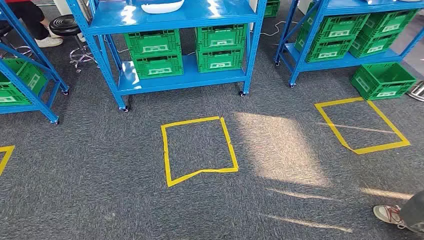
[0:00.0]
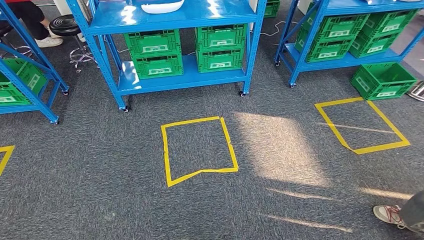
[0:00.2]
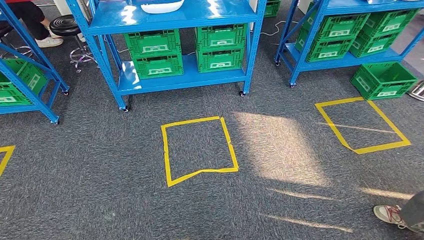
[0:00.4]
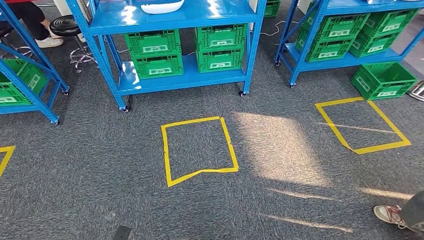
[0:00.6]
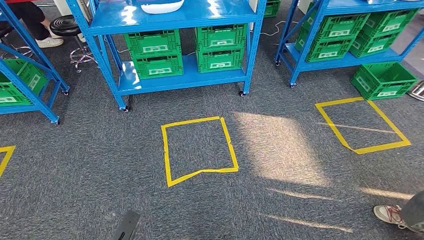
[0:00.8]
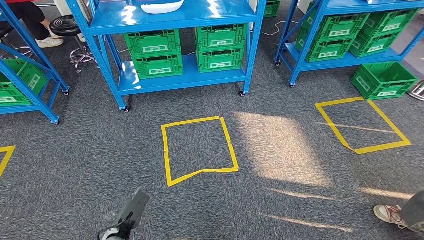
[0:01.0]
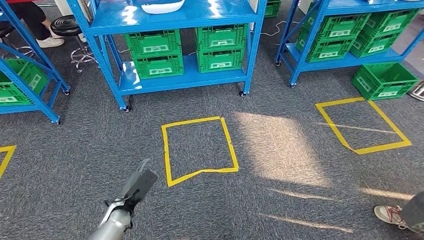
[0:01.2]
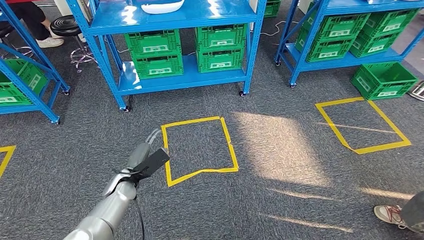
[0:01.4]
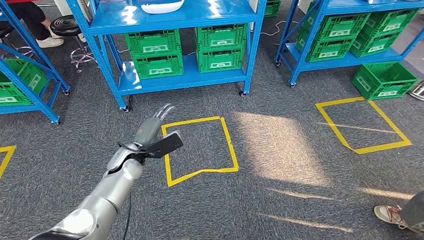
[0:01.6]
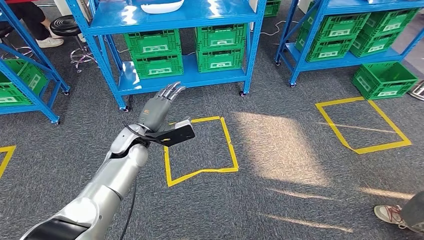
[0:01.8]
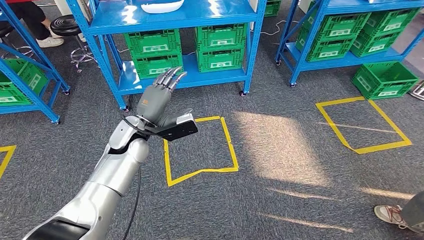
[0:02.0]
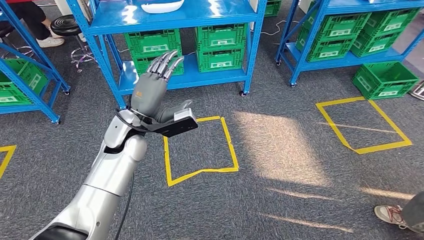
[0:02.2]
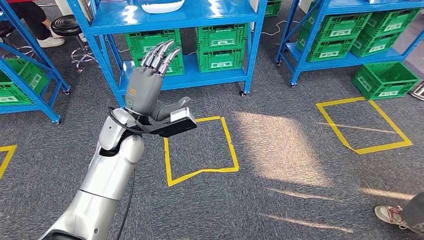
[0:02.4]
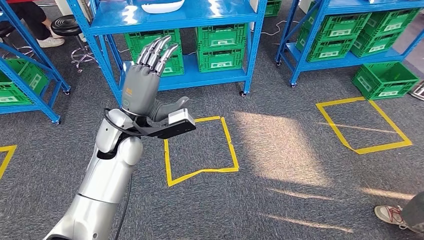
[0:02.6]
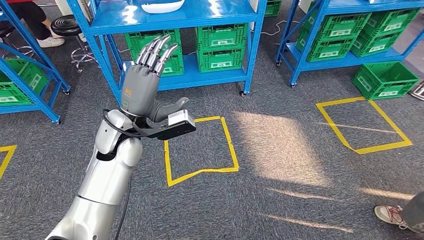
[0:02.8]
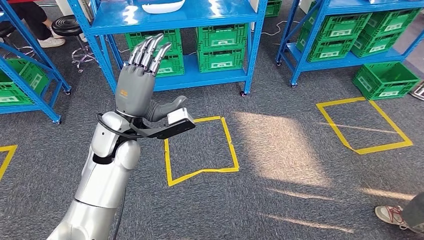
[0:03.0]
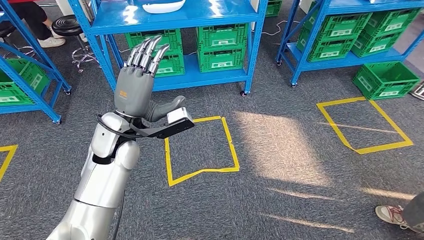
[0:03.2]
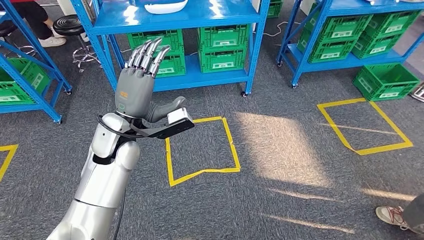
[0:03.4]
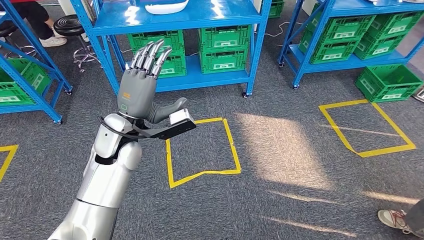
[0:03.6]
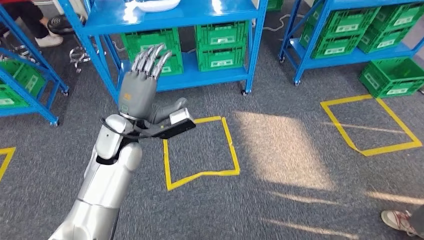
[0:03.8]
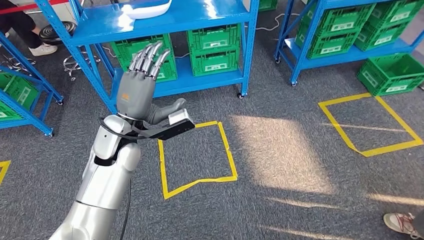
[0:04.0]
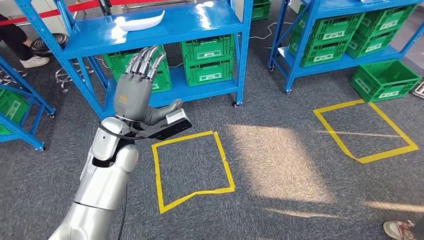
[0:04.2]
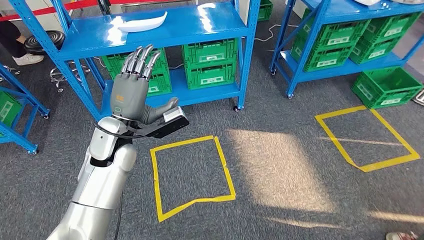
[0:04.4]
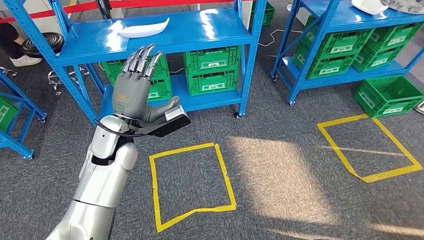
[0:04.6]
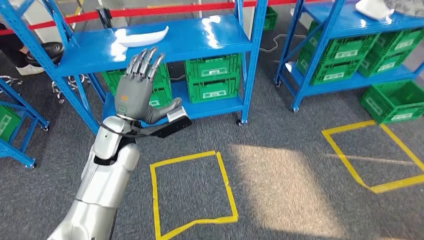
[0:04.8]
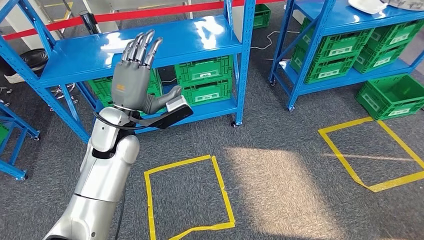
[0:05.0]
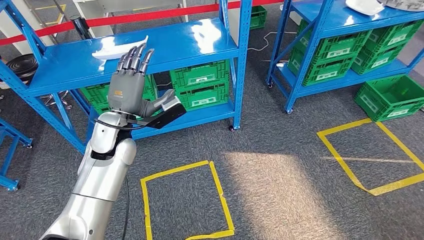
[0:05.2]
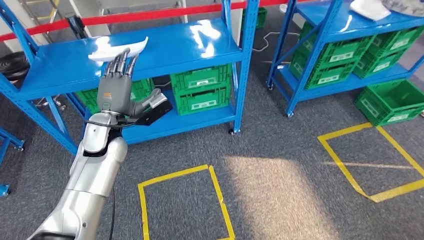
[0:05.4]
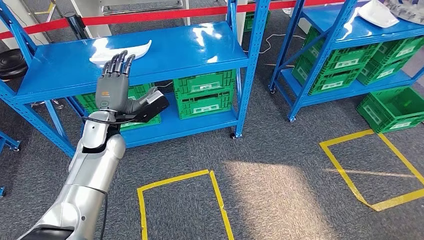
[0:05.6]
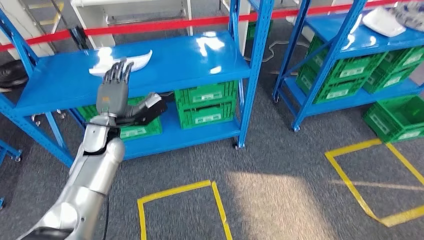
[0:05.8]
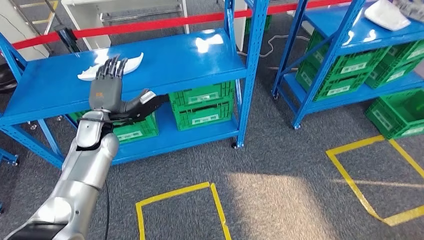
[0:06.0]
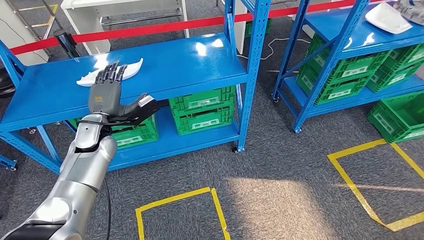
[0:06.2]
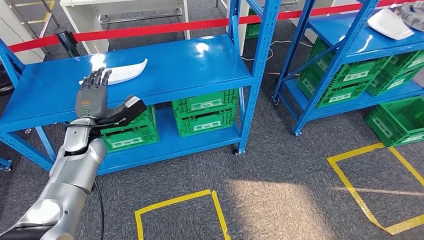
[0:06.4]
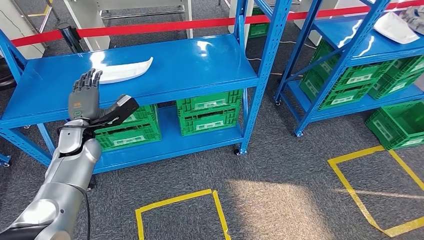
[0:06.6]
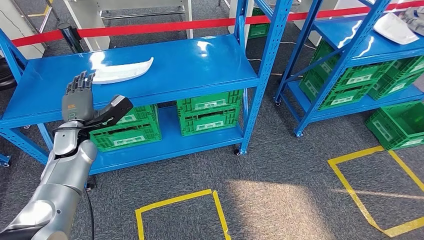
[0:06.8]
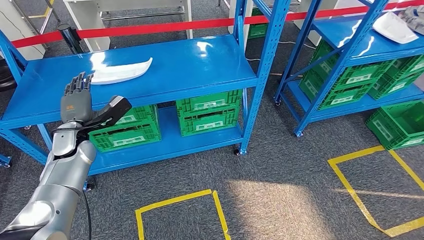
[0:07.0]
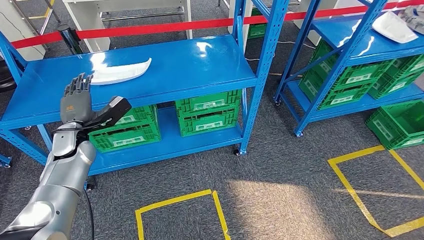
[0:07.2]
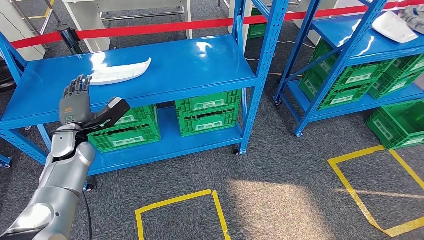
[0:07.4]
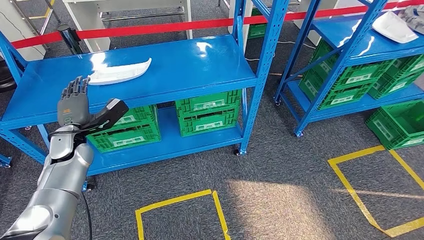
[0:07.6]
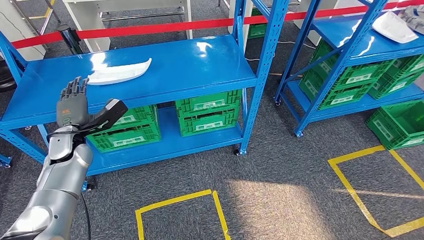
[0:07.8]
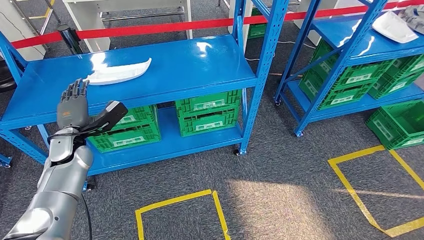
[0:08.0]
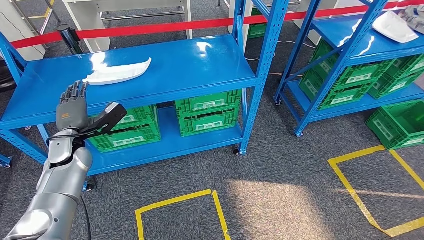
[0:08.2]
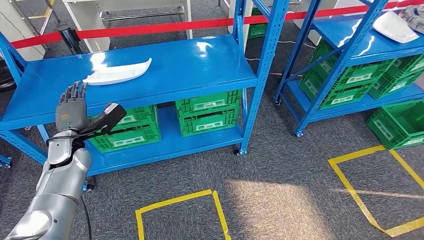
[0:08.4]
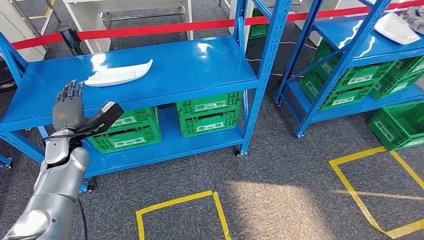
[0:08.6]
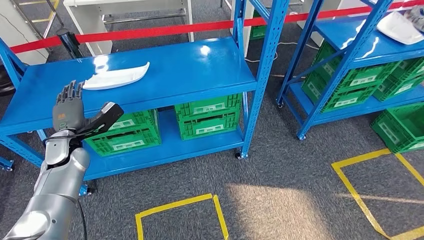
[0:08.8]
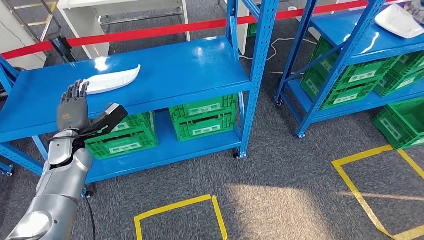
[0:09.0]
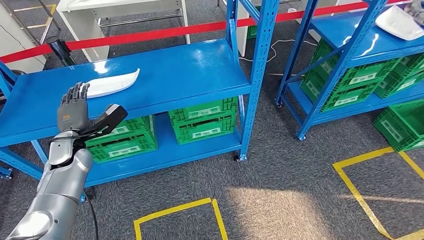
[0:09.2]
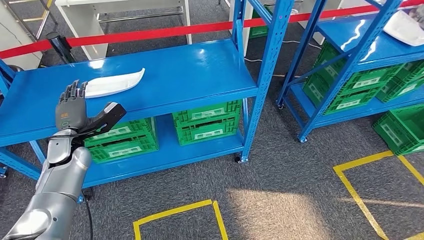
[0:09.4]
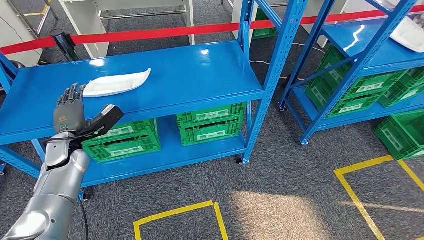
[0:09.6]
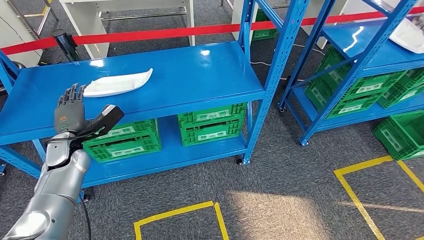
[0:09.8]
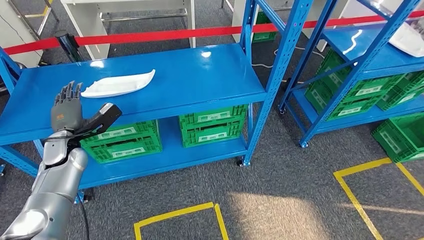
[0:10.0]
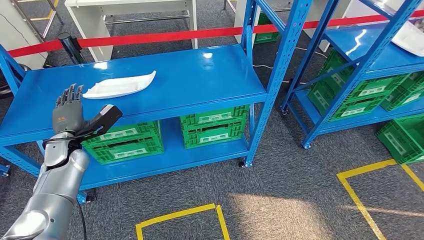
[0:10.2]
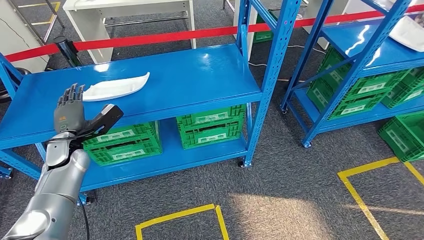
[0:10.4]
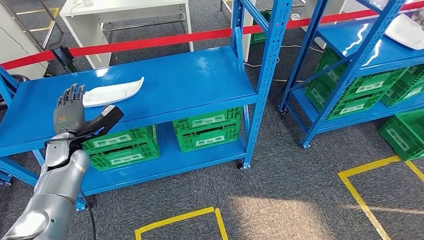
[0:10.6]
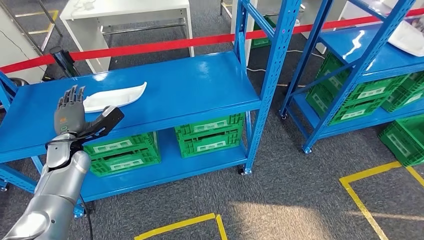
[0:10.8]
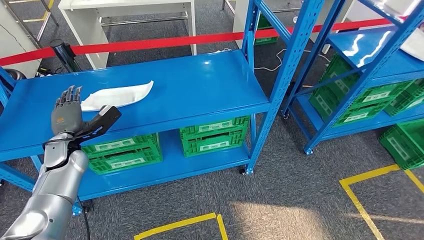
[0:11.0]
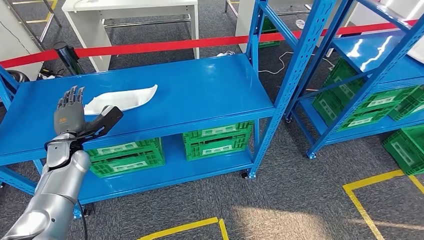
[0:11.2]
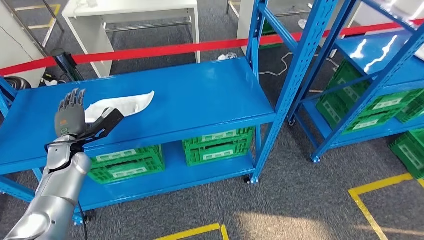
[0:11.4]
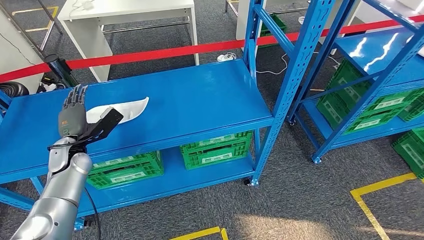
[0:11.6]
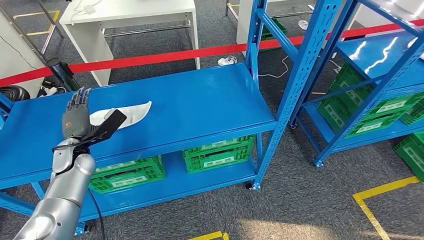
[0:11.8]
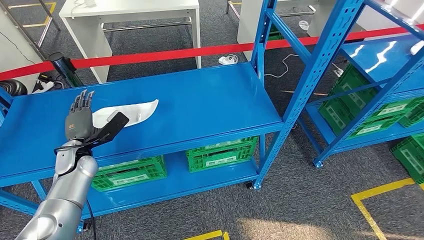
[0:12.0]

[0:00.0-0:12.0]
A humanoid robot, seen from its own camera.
0:01.6 to 0:03.0: The left hand is displaced upward by some 15 cm.

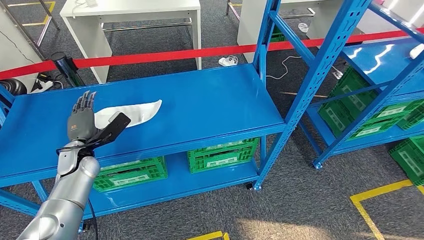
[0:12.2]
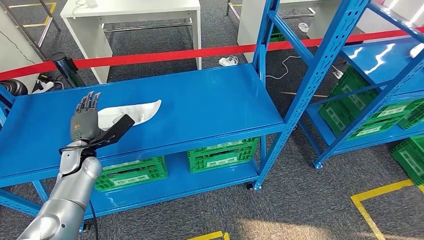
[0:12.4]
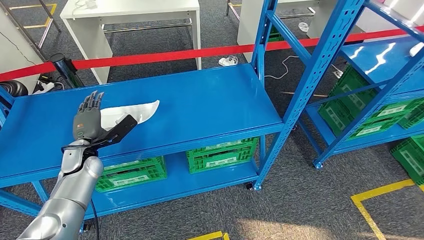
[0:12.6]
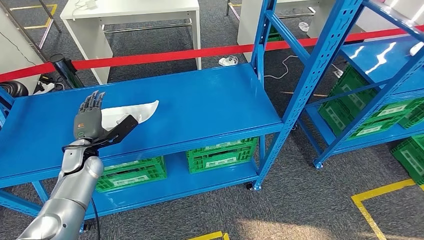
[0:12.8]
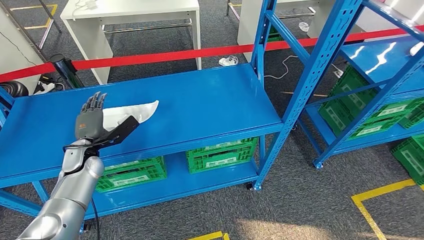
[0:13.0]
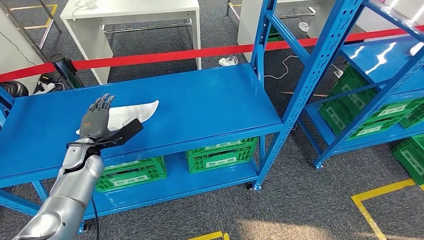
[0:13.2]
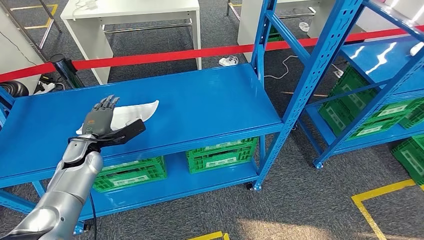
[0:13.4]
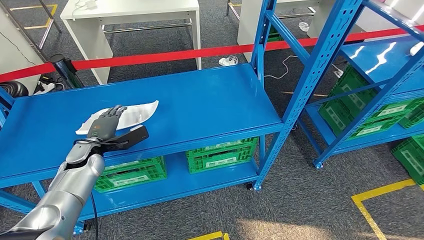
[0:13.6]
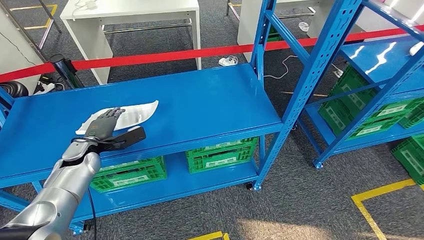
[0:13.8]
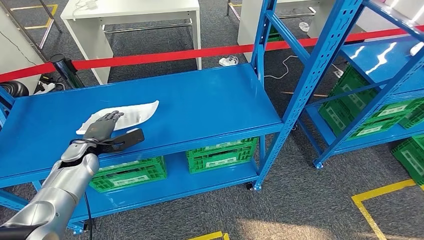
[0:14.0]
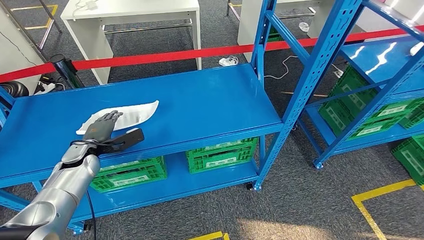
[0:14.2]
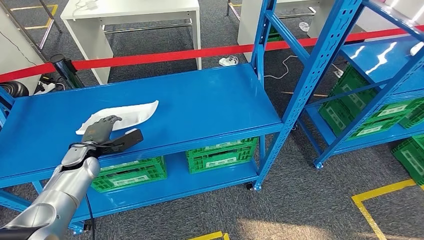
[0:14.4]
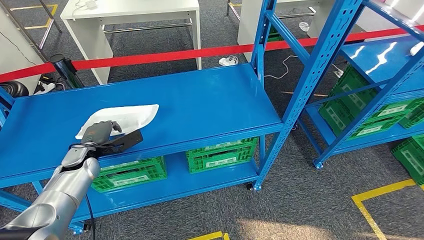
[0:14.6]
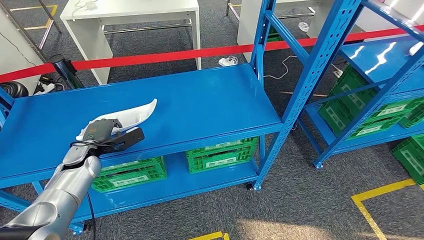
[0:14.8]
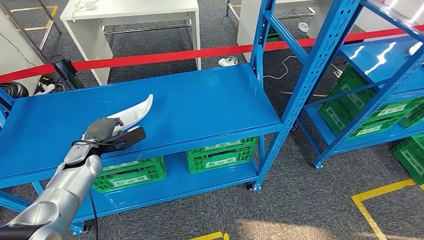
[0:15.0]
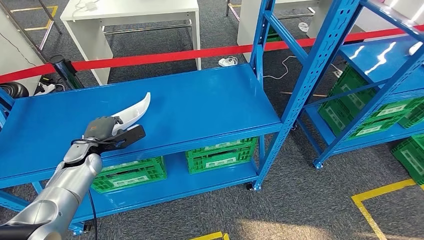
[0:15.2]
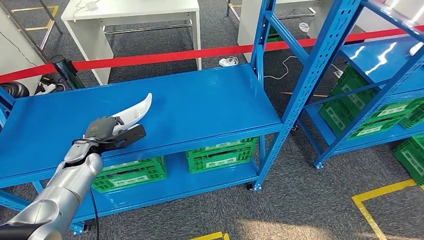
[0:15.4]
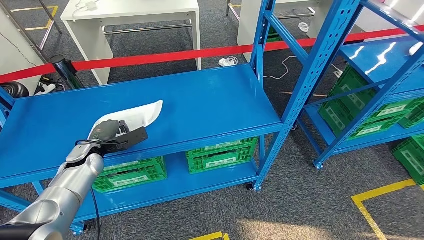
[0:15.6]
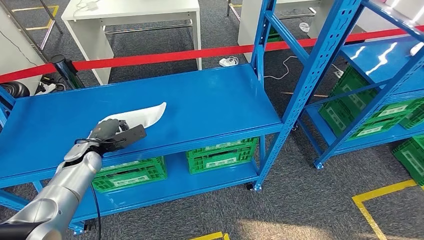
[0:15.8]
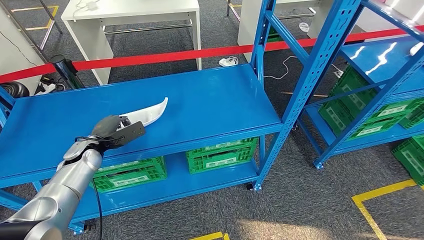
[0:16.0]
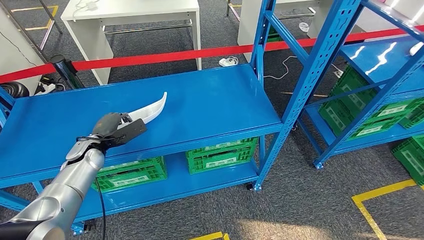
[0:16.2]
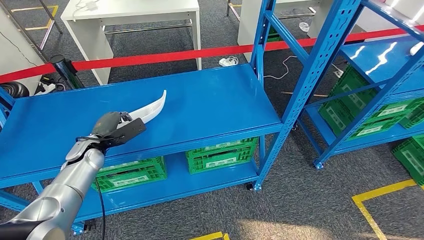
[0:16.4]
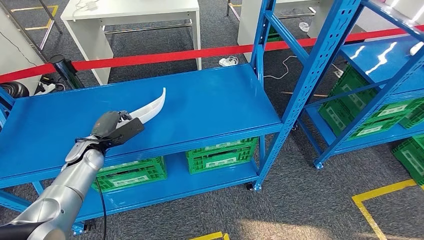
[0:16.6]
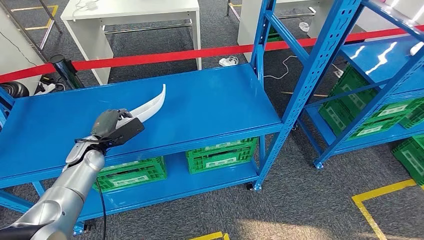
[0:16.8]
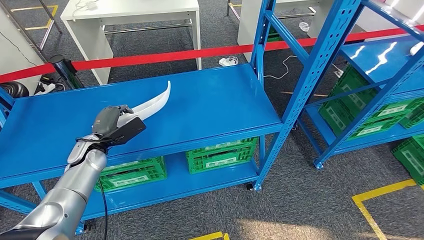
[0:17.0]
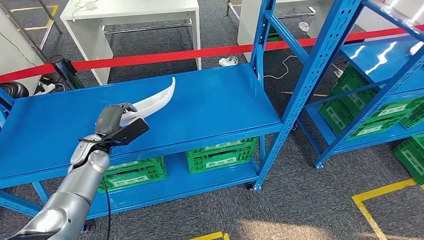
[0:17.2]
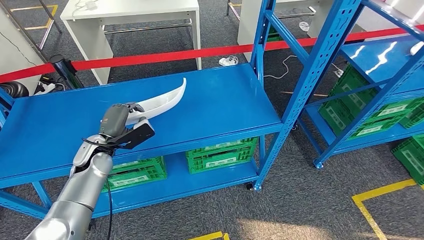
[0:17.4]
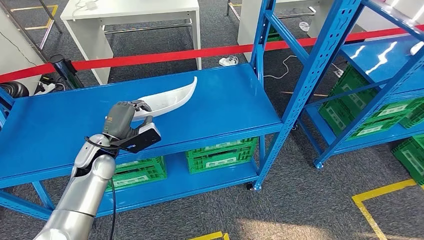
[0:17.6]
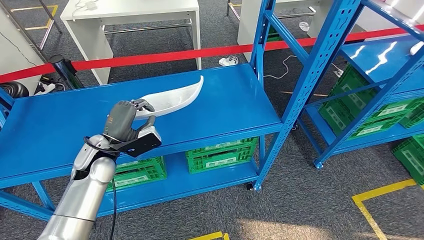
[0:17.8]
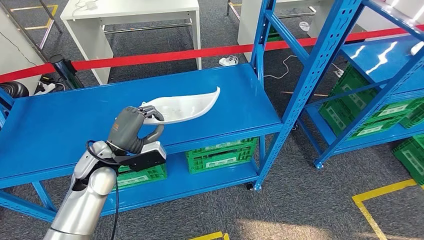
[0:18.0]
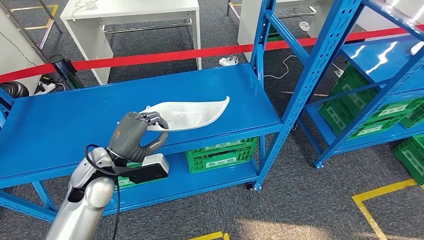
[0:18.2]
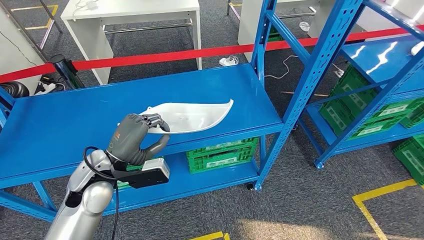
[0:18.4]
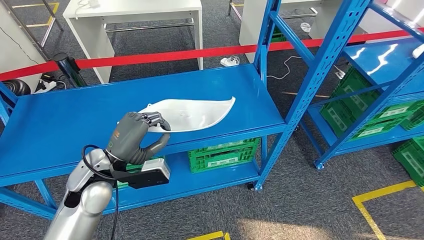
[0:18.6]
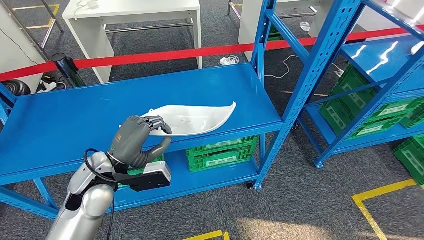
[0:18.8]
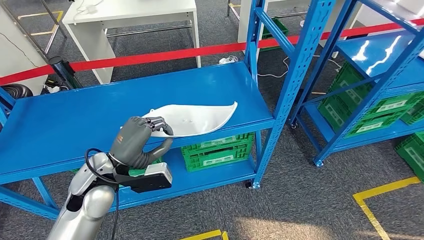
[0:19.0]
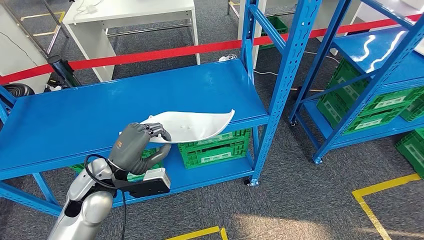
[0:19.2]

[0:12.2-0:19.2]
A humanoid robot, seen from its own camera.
Step, 0:12.2 to 0:18.0: Pick up the small component from the shelf.
0:13.6 to 0:16.4: The hands move only a little.
0:16.4 to 0:17.8: The left hand shifts roughly 5 cm to the right.
